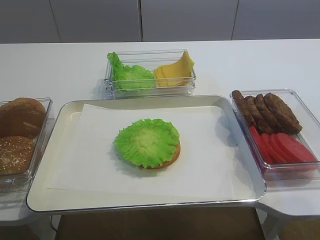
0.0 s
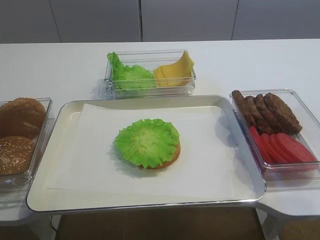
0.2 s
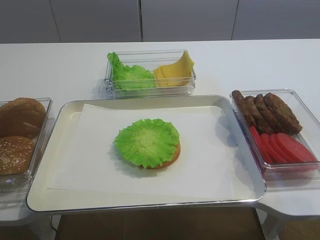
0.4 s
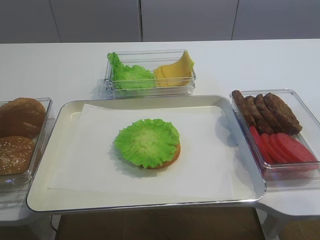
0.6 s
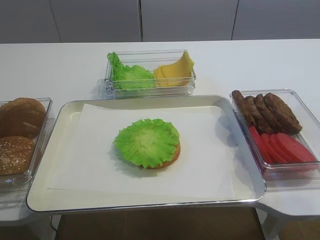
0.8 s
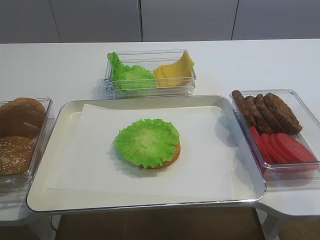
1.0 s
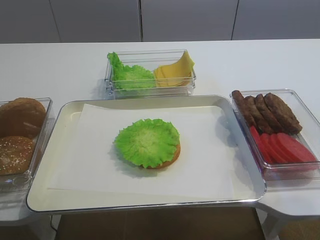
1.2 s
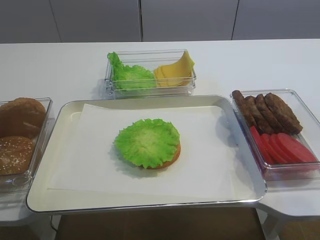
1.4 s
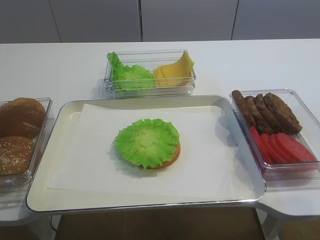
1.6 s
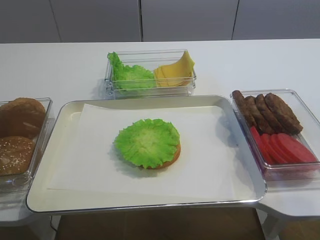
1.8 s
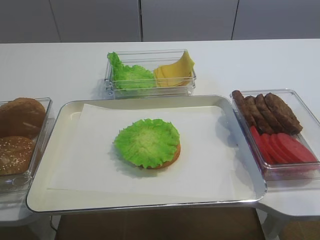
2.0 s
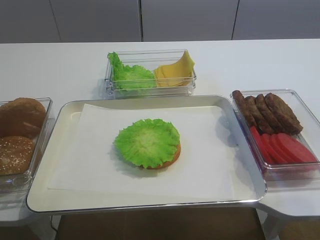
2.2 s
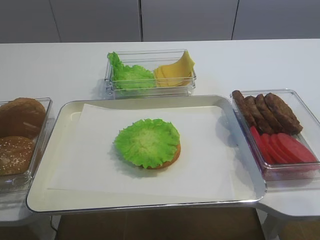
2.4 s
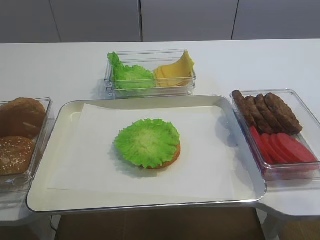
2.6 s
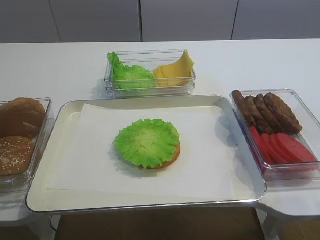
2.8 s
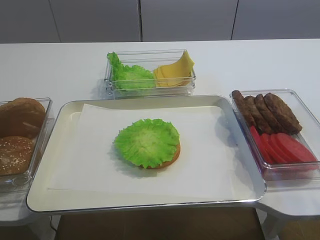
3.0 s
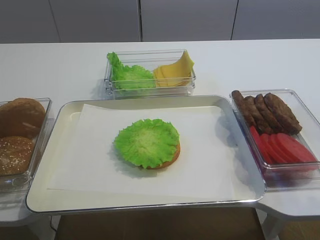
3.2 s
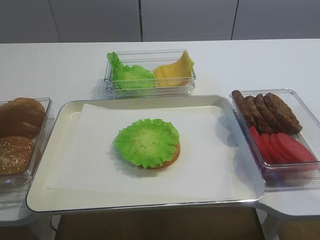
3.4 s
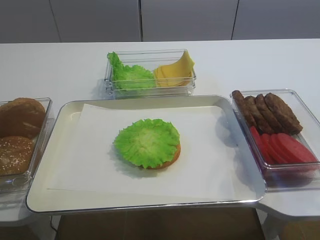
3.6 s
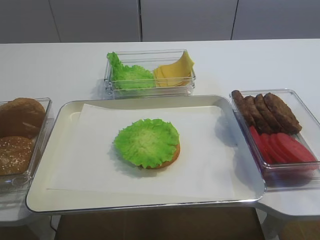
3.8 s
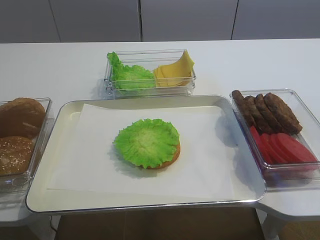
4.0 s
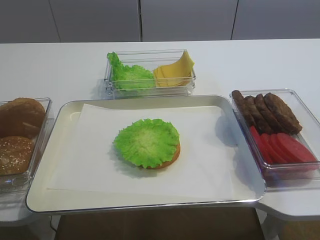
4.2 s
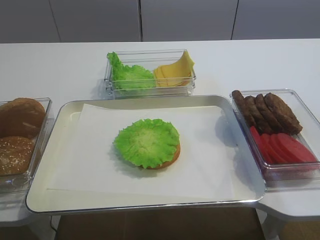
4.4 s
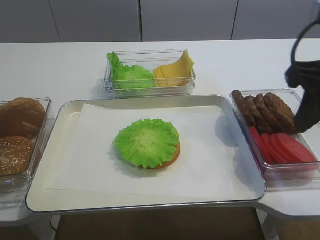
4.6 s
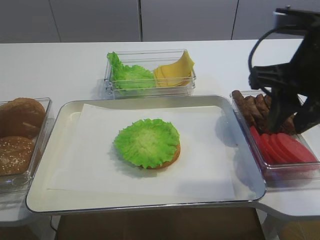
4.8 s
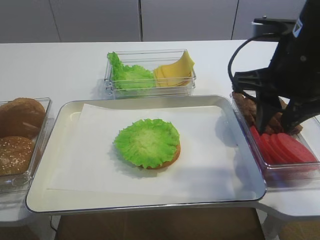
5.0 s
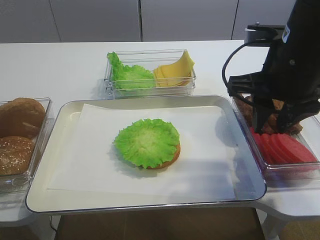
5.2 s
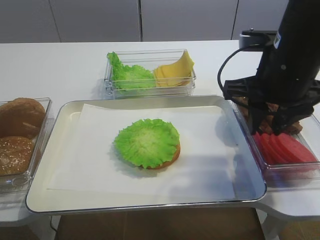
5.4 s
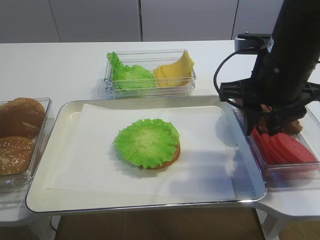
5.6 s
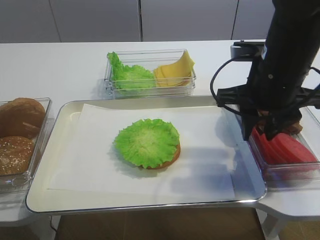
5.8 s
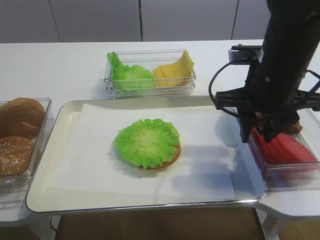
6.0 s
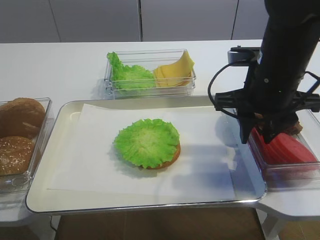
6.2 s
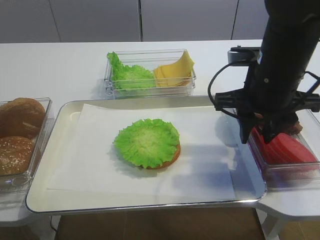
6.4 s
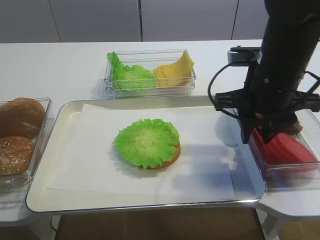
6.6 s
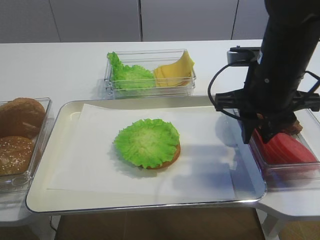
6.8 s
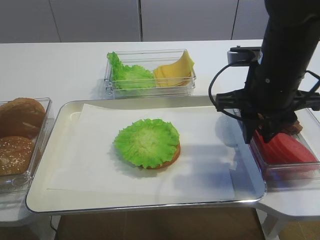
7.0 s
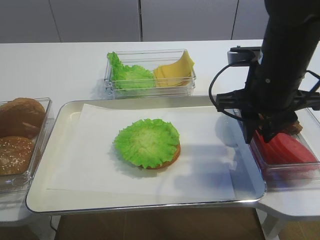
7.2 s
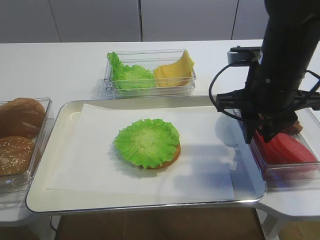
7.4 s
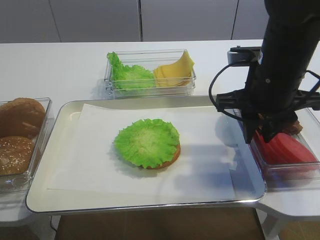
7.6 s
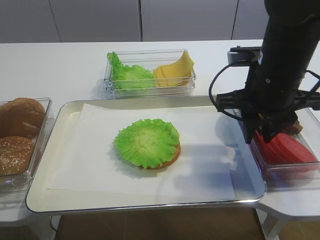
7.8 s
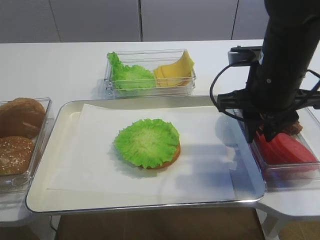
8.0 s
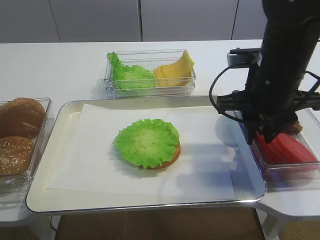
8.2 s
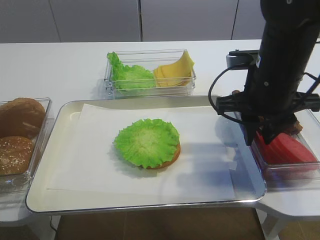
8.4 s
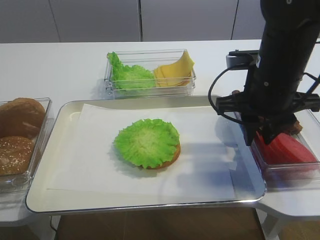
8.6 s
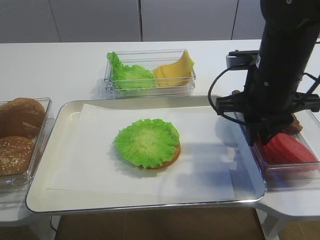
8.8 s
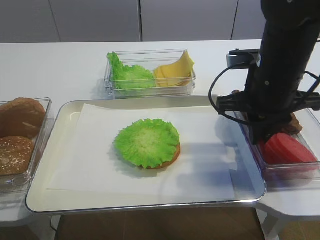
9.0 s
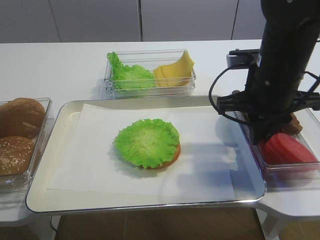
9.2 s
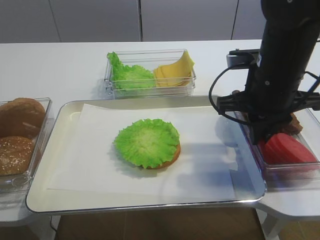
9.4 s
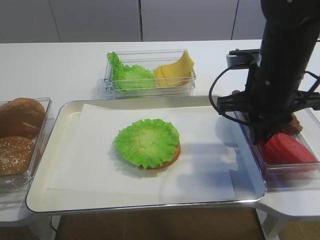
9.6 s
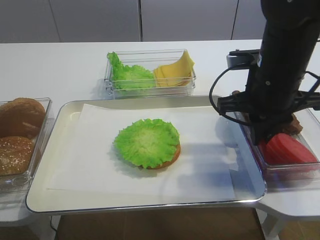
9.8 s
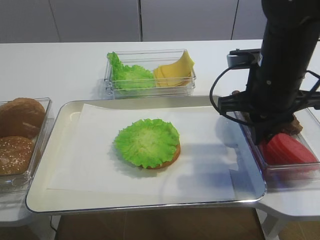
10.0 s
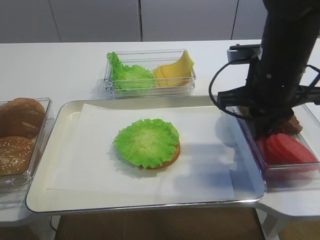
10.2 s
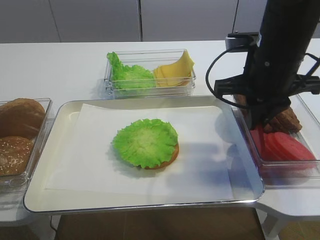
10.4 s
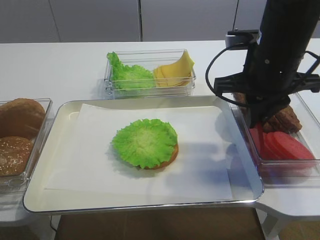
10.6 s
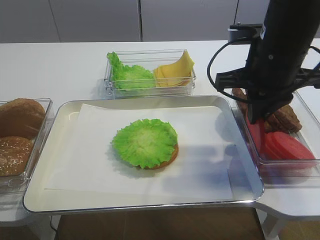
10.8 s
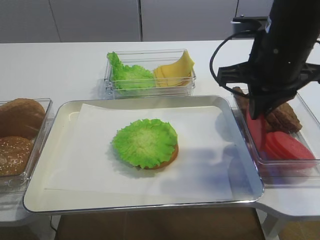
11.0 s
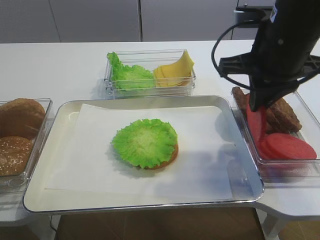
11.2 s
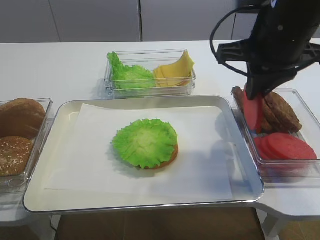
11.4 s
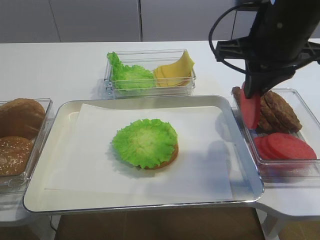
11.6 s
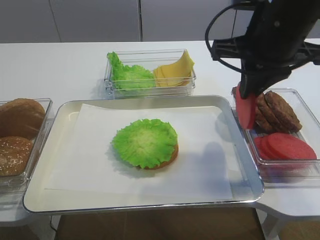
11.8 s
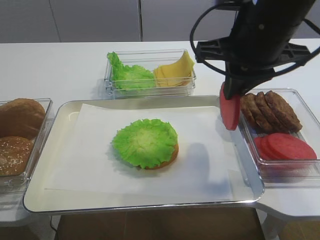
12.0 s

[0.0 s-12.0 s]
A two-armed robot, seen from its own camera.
Step, 0.0 to 10.8 s: Pick up the tomato slice with the right gripper.
1.6 to 3.0 s: The two grippers keep their place.
4.4 to 6.0 s: The right gripper is displaced forward, to the left and downward by some 15 cm.
6.0 to 7.6 s: Both grippers stay put.
7.6 to 9.0 s: The right gripper closes its fingers.
9.0 to 10.4 s: The grippers stay close to where they were, moving slightly.
10.4 to 12.0 s: The right gripper shifts approximately 5 cm upward.

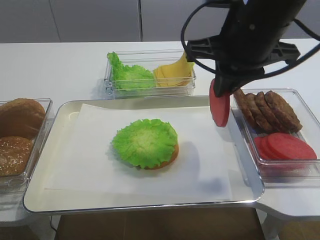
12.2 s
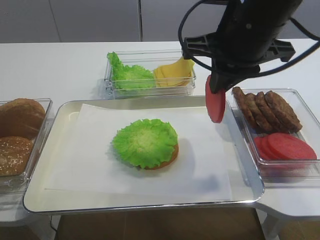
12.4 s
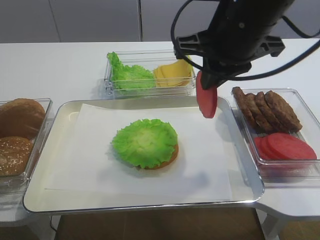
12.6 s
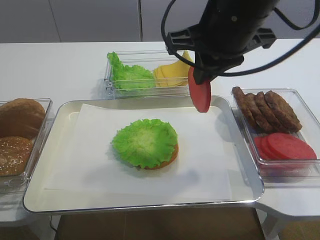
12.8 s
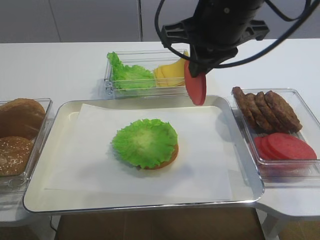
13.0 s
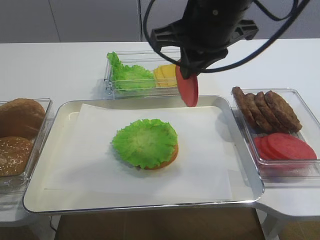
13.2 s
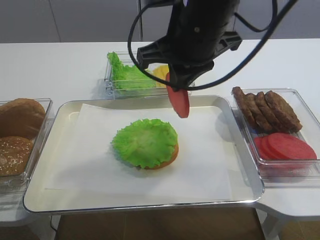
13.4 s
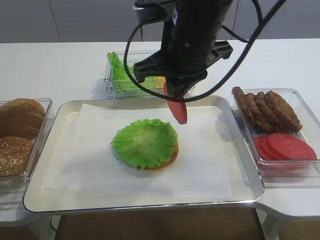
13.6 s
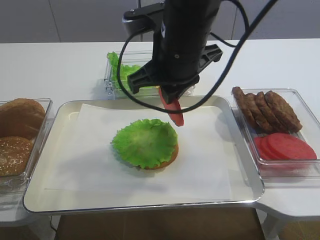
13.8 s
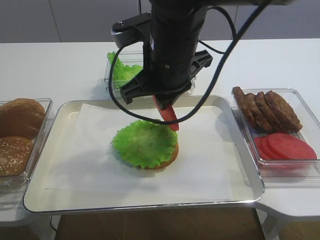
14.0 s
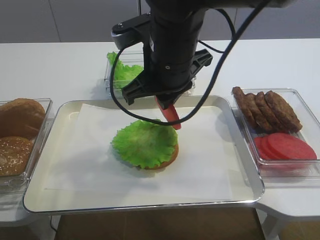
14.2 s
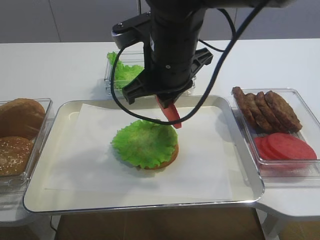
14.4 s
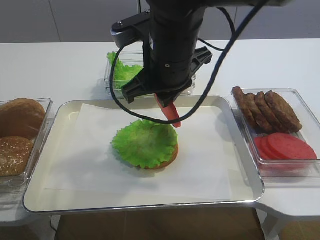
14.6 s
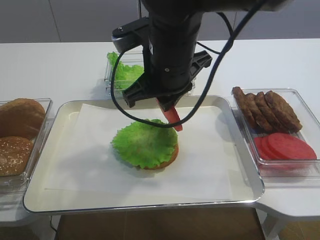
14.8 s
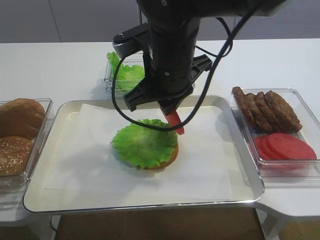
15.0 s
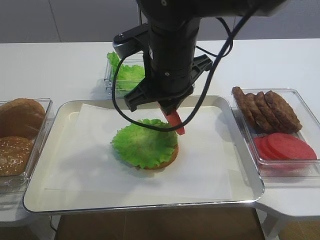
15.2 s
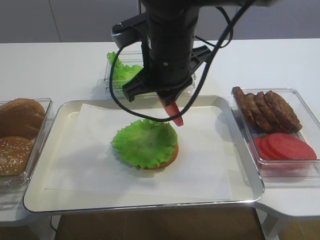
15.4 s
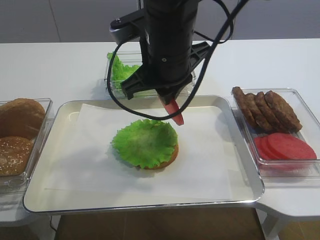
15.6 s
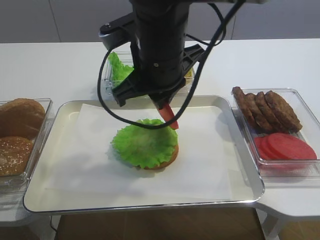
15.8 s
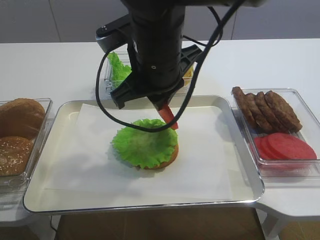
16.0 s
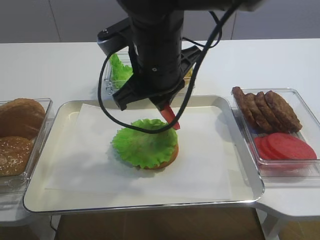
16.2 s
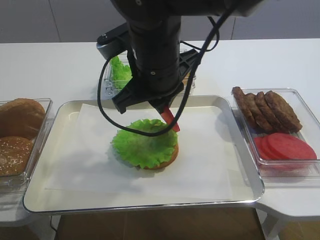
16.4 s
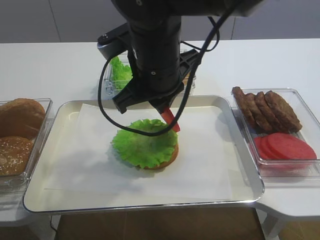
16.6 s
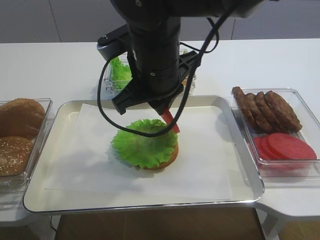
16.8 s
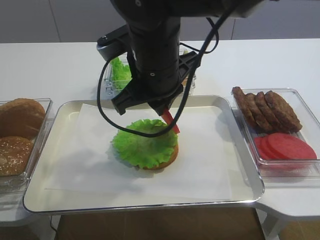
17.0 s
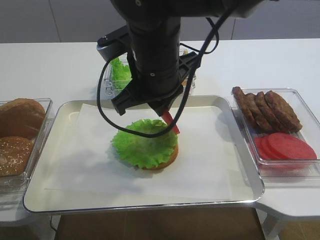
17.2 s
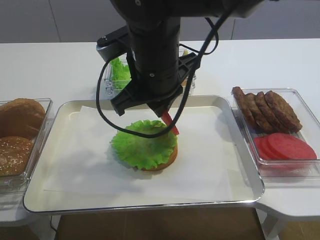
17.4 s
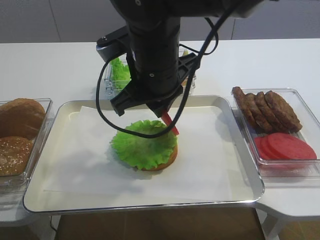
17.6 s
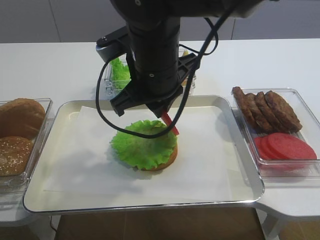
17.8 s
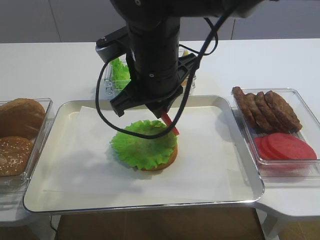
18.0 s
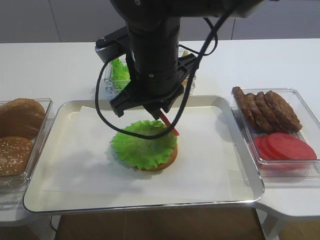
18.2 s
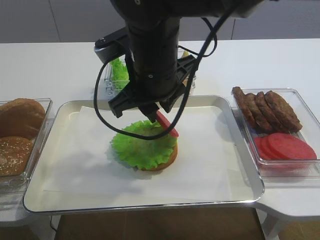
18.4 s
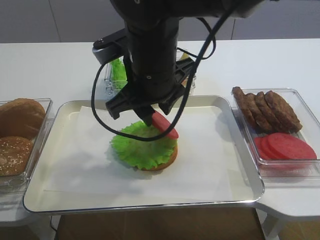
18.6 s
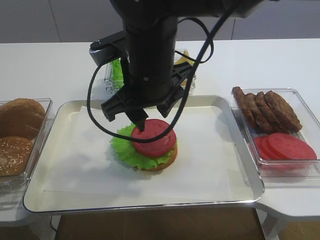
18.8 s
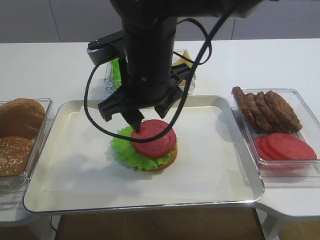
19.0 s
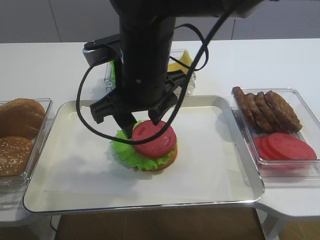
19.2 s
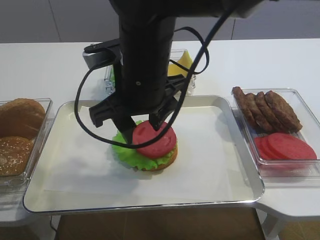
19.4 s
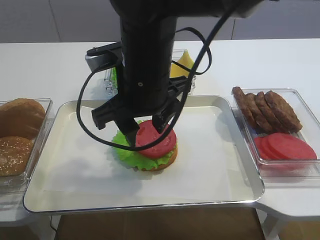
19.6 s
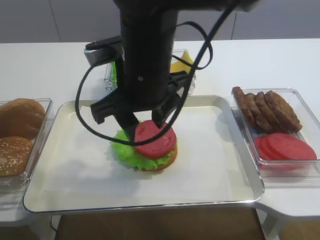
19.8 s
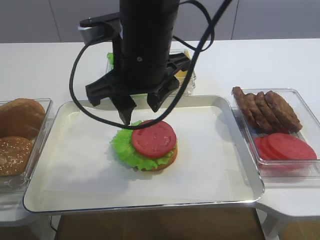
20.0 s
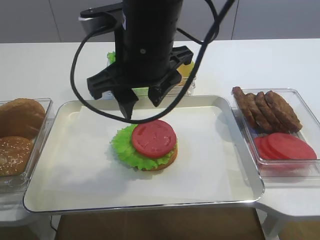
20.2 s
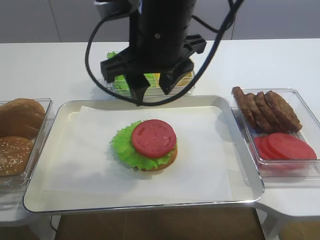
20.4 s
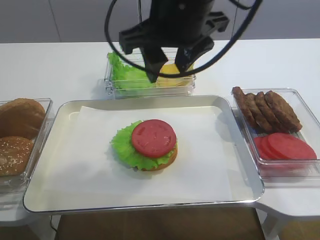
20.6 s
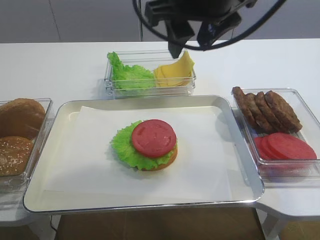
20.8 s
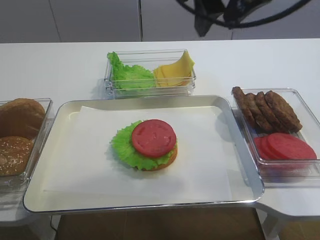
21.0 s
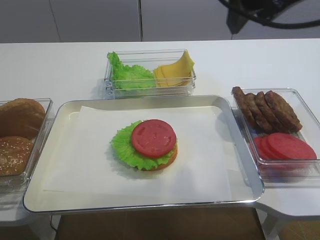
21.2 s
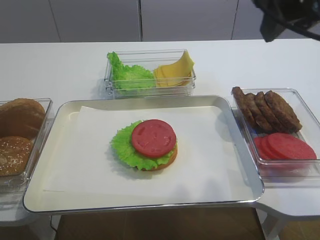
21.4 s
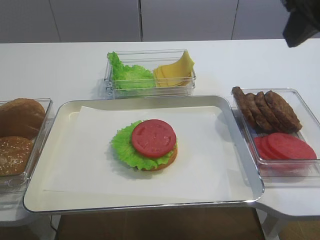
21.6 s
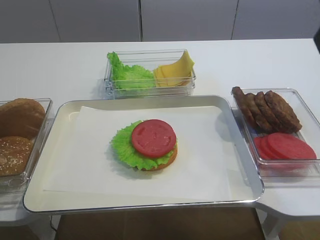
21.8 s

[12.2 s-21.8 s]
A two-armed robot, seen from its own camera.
Step, 12.2 to 19.4 s: Place the tomato slice on the lettuce leaf with the right gripper.
12.2 to 13.8 s: The right gripper heads to the left, covering approximately 10 cm.
13.8 to 17.0 s: The grippers stay close to where they were, moving slightly.
17.0 to 18.6 s: The right gripper opens its fingers.
18.6 to 20.2 s: The grippers stay close to where they were, moving slightly.
20.2 to 21.8 s: The right gripper travels to the right, upward and backward by about 25 cm.
